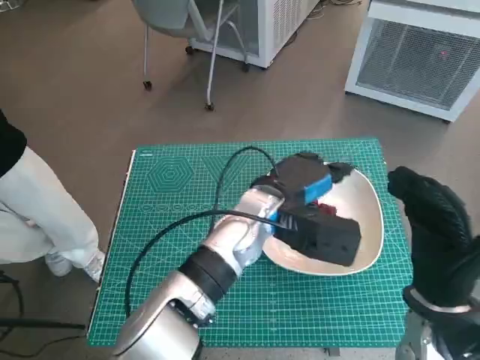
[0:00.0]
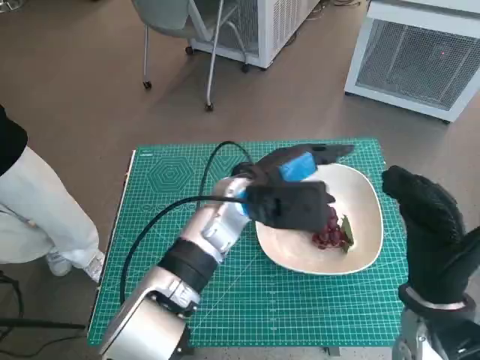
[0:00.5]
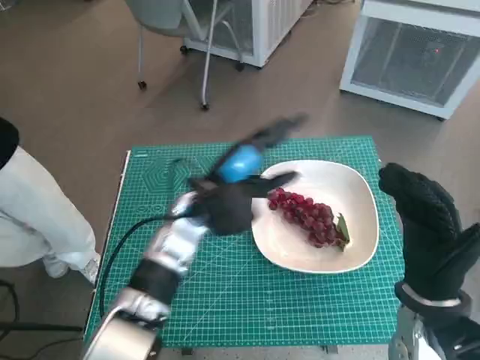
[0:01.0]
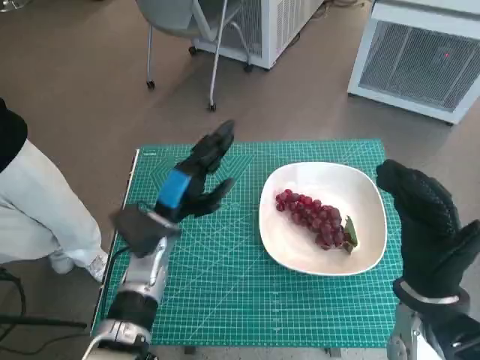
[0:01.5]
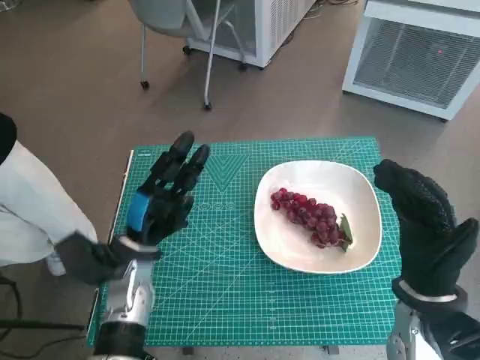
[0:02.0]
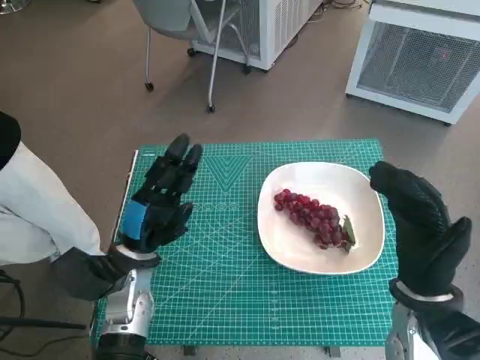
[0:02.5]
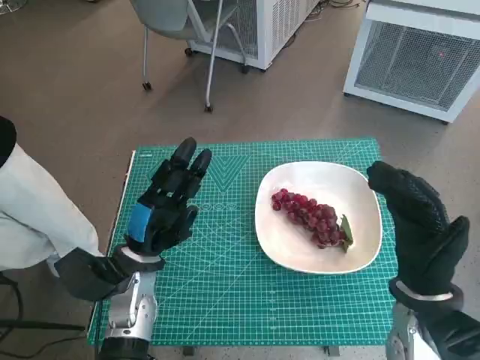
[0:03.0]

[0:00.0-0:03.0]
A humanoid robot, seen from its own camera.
Task of the whole recording: Pick up the grapes and put them on the plate.
0:00.0 to 0:01.5: The left hand is displaced to the left by about 15 cm.
0:01.5 to 0:03.0: The left hand moves approximately 5 cm.

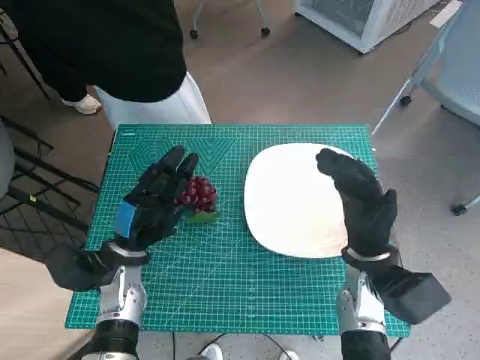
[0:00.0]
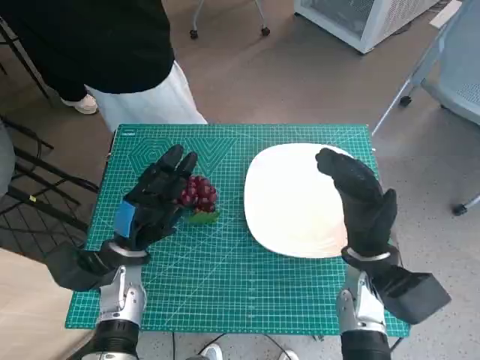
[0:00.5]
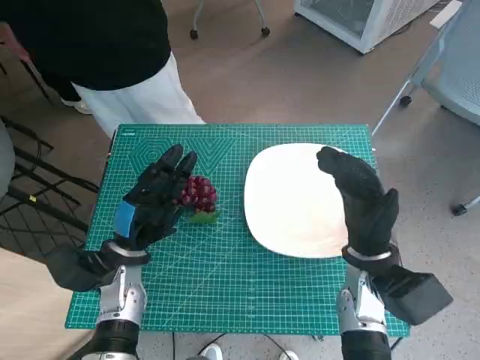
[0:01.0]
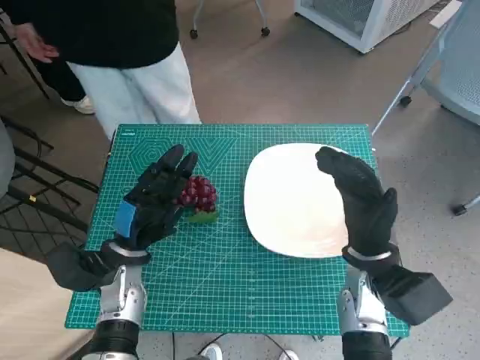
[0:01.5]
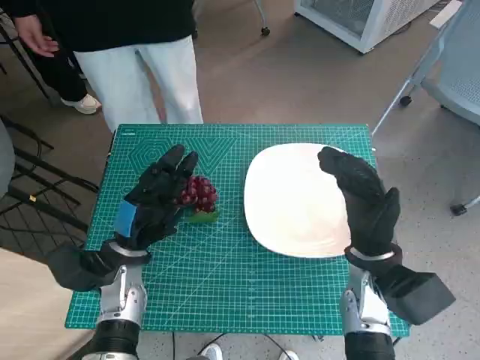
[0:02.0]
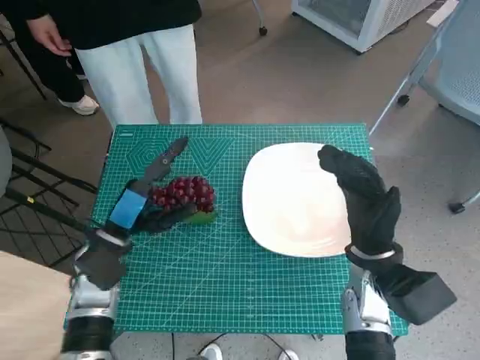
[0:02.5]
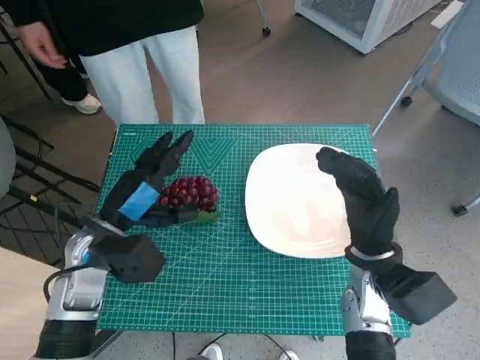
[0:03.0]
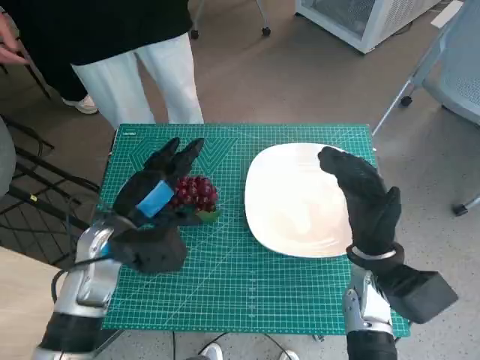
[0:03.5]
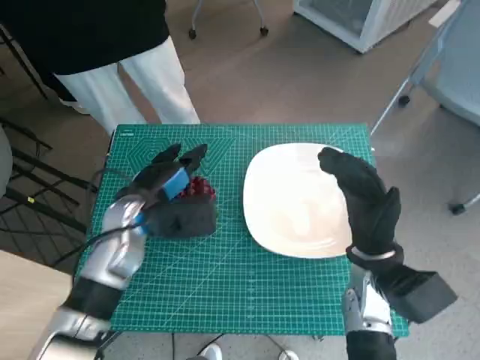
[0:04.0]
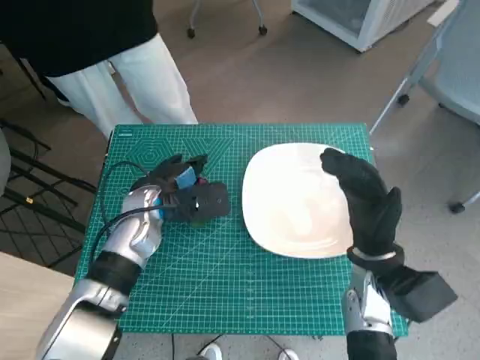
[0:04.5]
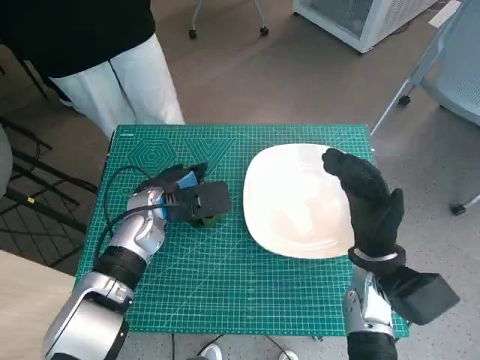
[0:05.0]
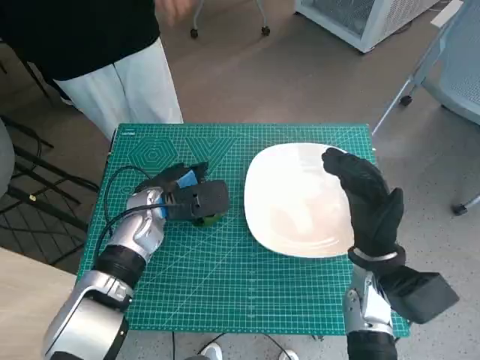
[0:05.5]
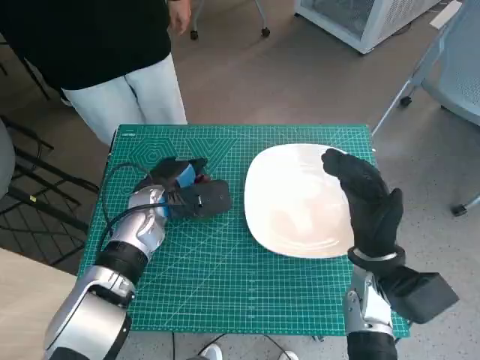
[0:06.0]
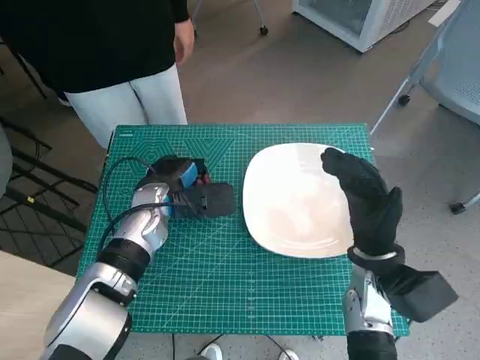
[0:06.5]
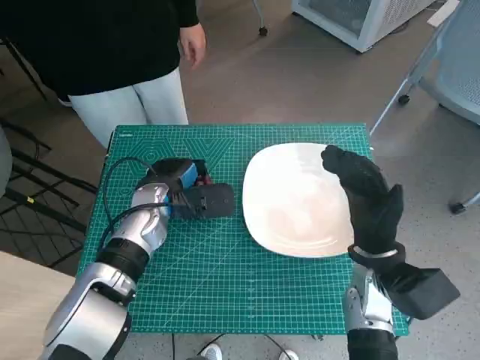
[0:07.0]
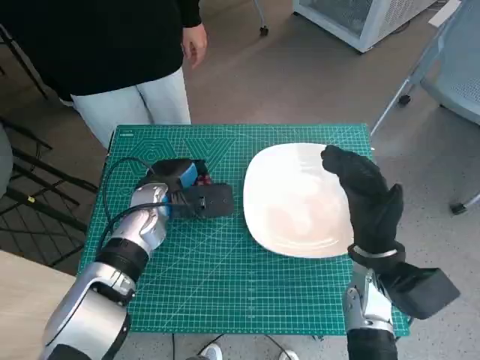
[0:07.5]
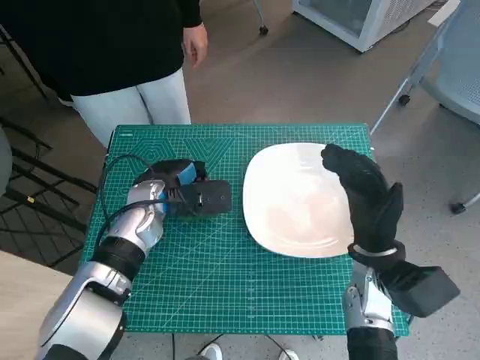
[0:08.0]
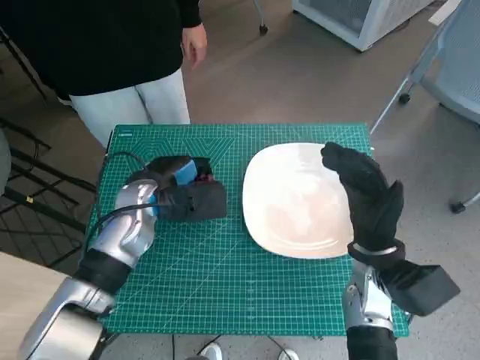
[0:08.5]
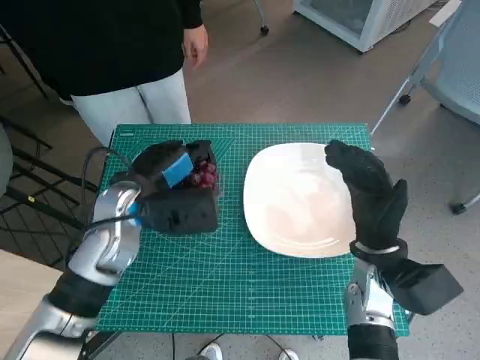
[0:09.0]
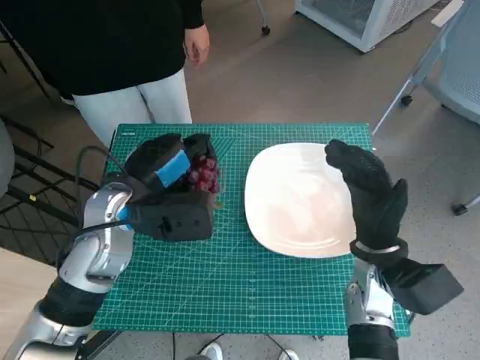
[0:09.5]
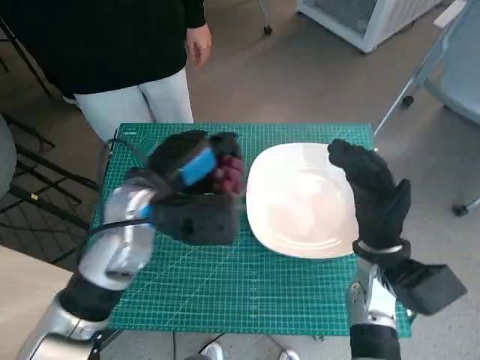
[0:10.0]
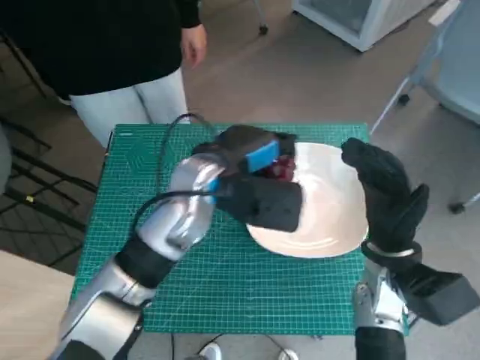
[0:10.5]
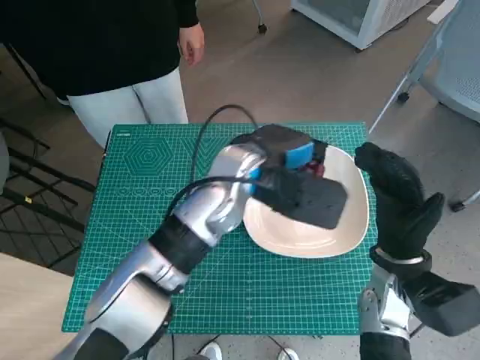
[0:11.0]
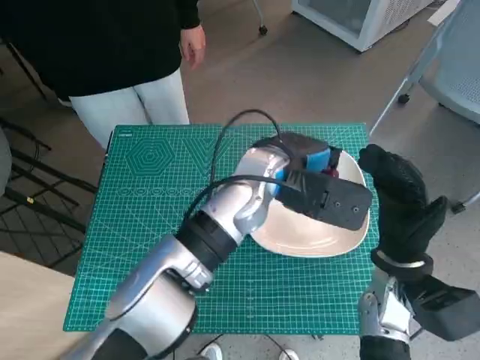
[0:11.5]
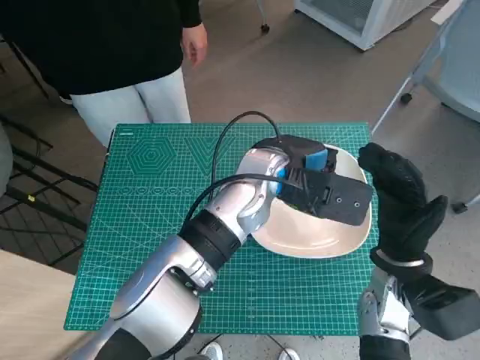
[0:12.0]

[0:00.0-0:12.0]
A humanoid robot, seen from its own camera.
Task of the whole recording: Pick up the grapes and put them on the plate.
Step, 0:00.0 to 0:04.5: Grasp the grapes with left hand.
0:02.0 to 0:04.0: The left hand goes about 5 cm upward.
0:04.0 to 0:06.0: The left hand changes place by approximately 5 cm.
0:06.0 to 0:08.0: There are only small adjustments of the hands.
0:08.0 to 0:10.0: The left hand is displaced upward and backward by roughly 10 cm.
0:10.0 to 0:12.0: The left hand travels to the right by about 15 cm.

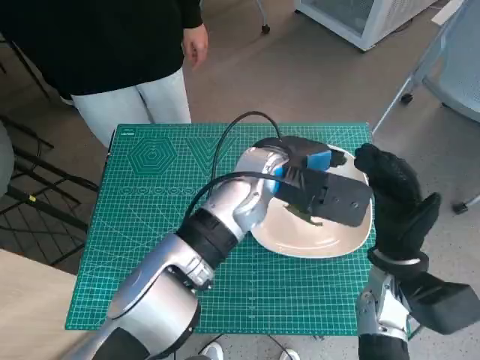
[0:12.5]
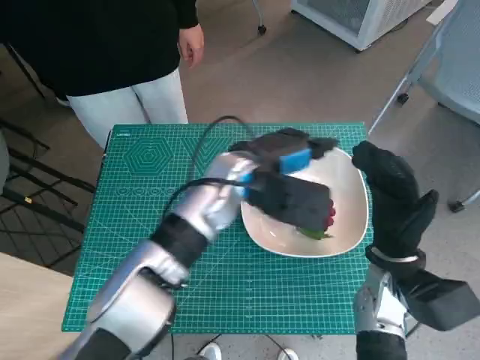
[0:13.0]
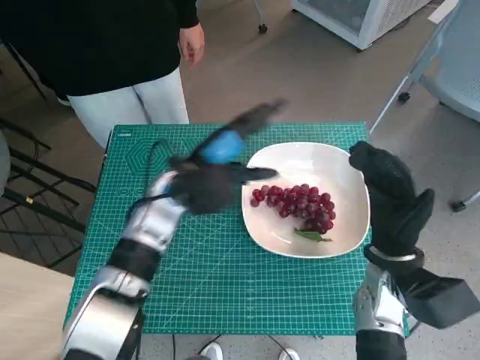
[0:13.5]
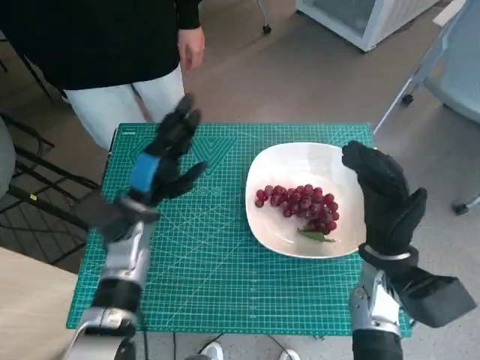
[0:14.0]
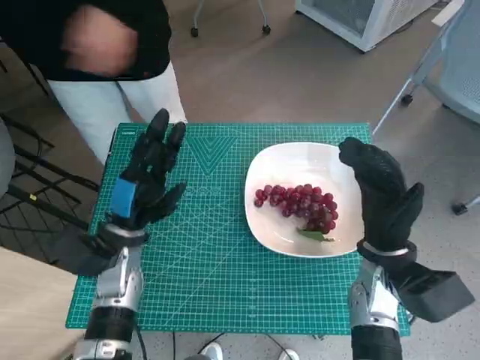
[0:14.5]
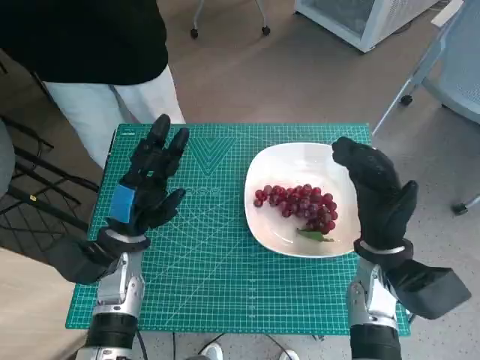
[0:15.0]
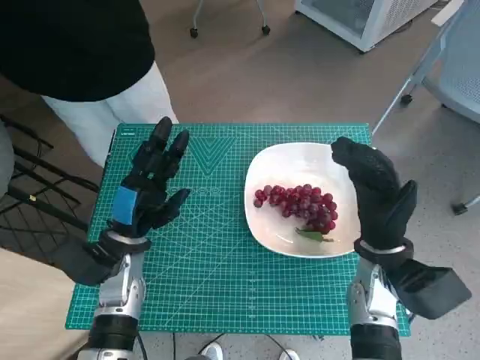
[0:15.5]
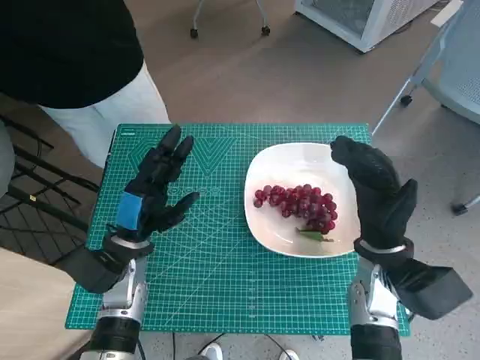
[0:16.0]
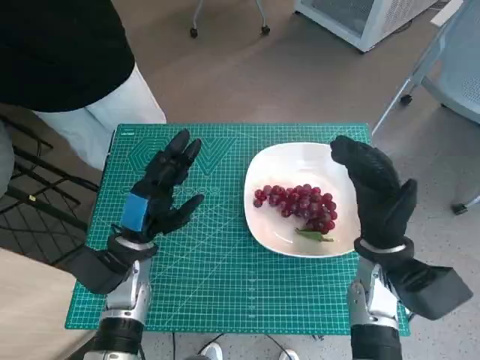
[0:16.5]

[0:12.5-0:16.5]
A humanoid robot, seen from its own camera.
Task of the whole recording: Pick up the grapes and put them on the plate.
0:12.5 to 0:14.5: The left hand goes about 25 cm to the left and downward.
0:14.5 to 0:16.5: There are only small adjustments of the hands.
